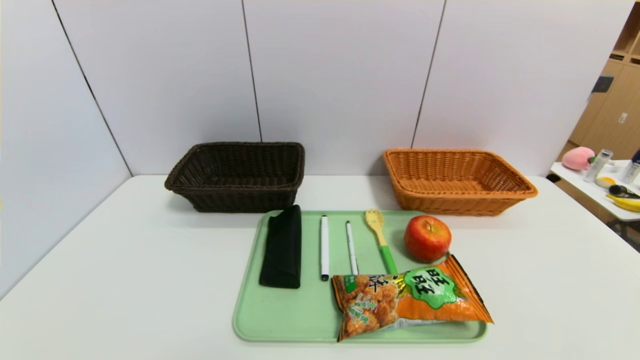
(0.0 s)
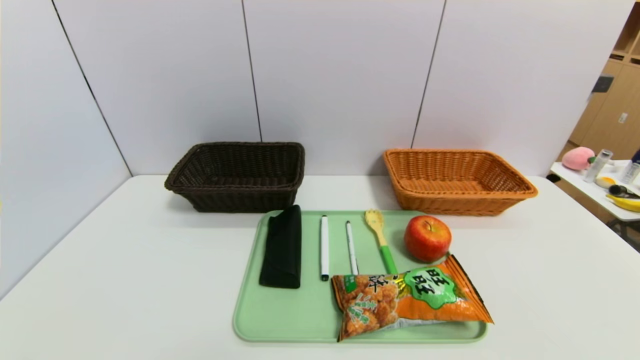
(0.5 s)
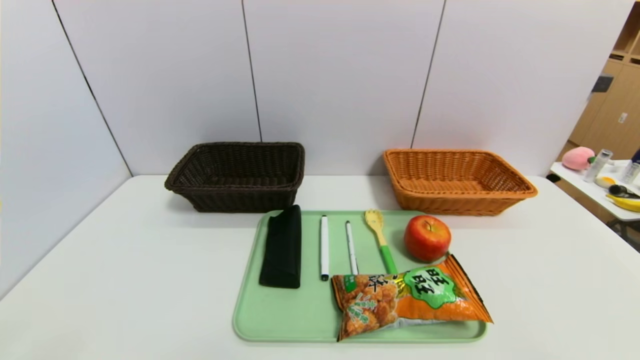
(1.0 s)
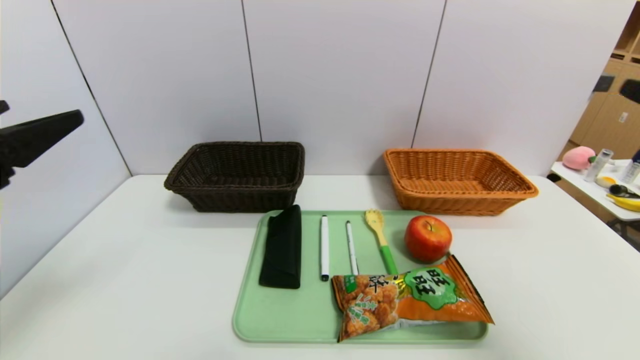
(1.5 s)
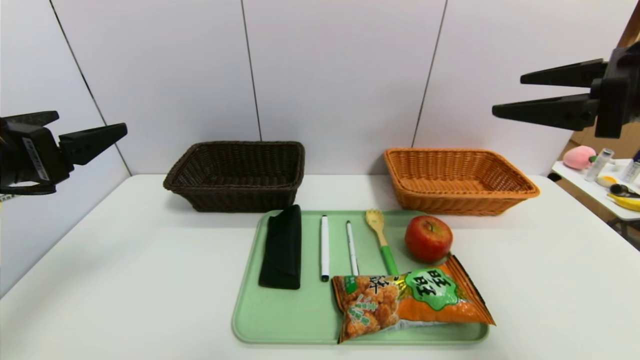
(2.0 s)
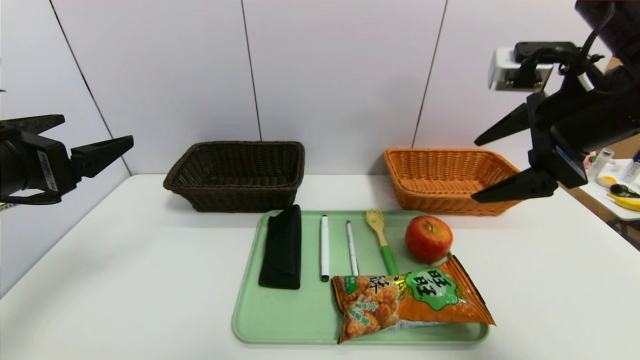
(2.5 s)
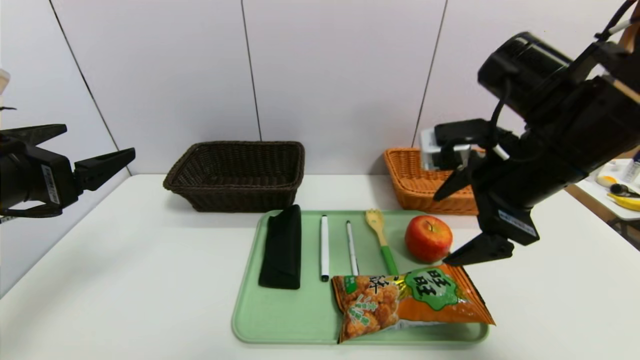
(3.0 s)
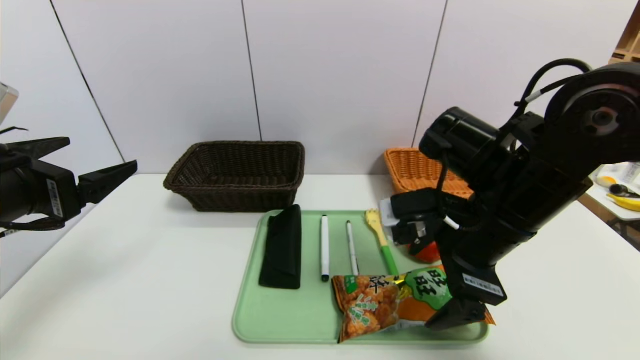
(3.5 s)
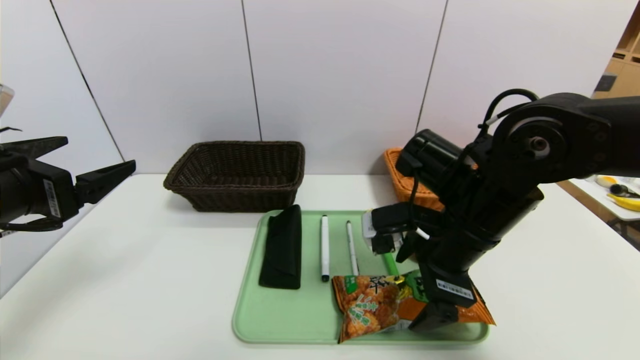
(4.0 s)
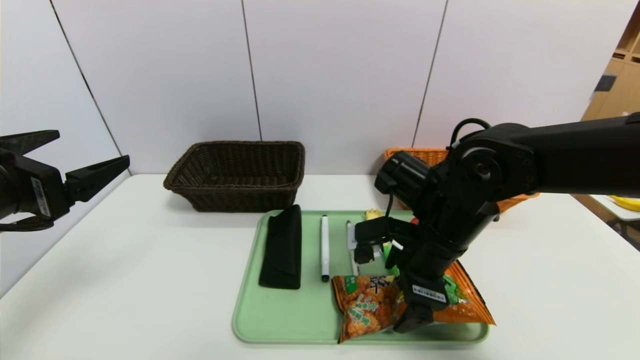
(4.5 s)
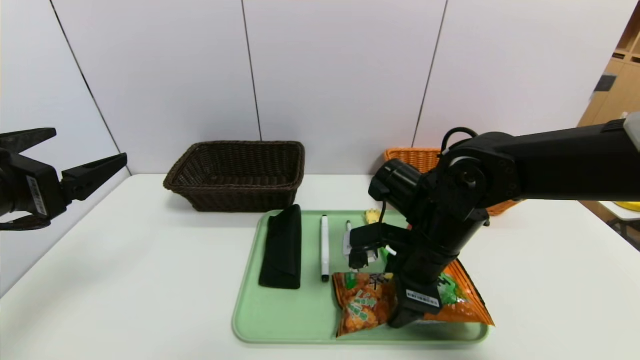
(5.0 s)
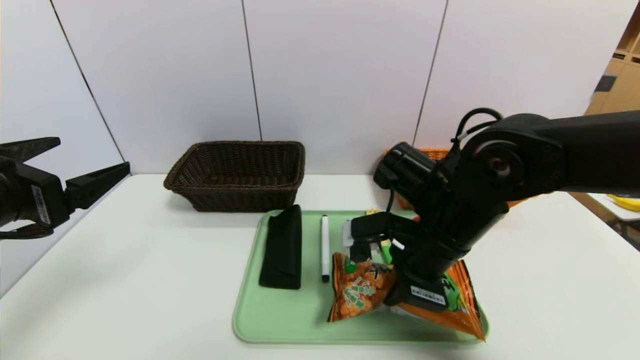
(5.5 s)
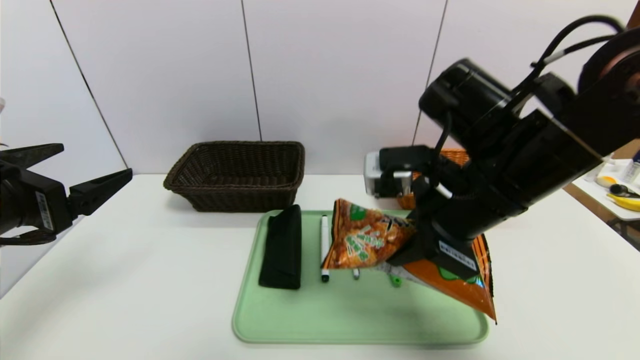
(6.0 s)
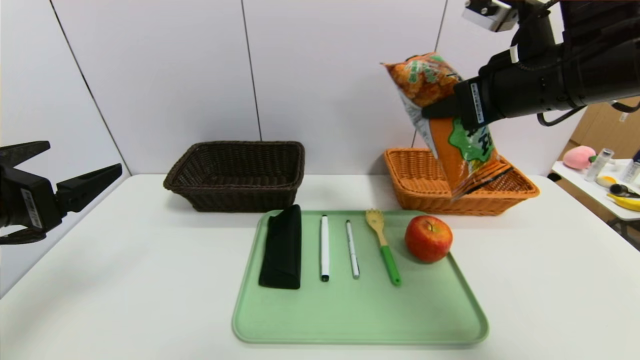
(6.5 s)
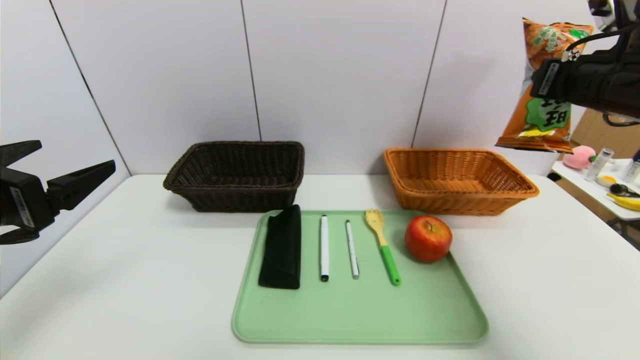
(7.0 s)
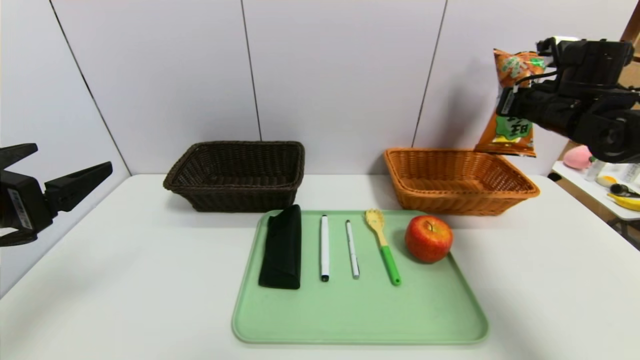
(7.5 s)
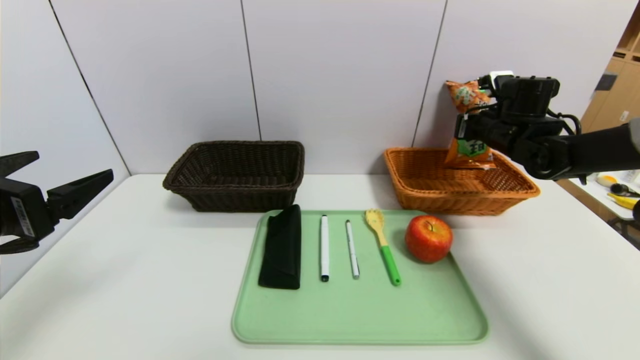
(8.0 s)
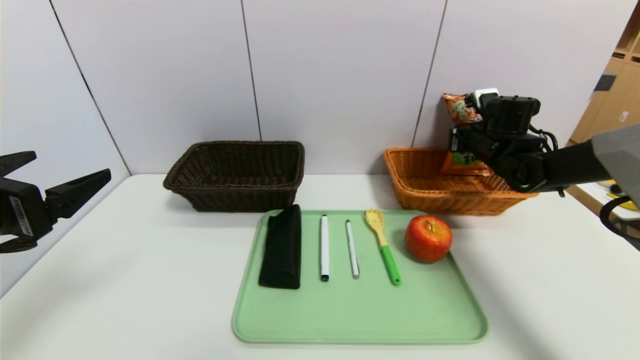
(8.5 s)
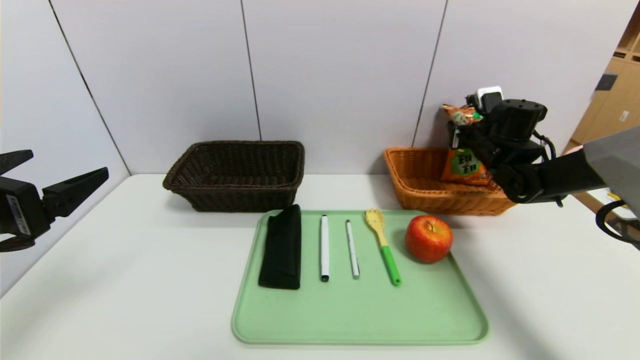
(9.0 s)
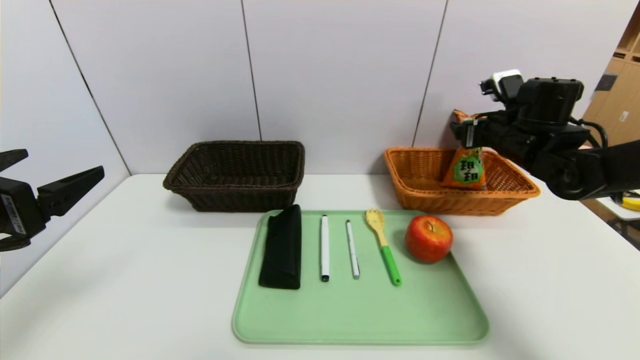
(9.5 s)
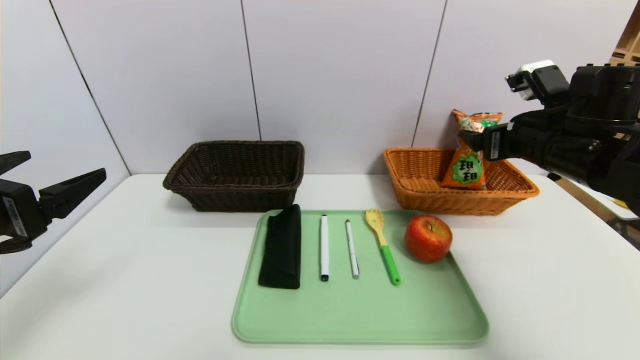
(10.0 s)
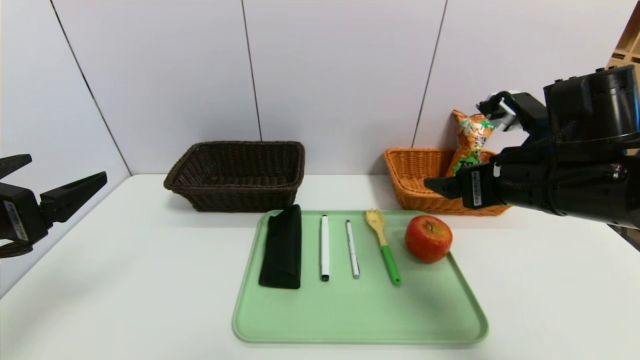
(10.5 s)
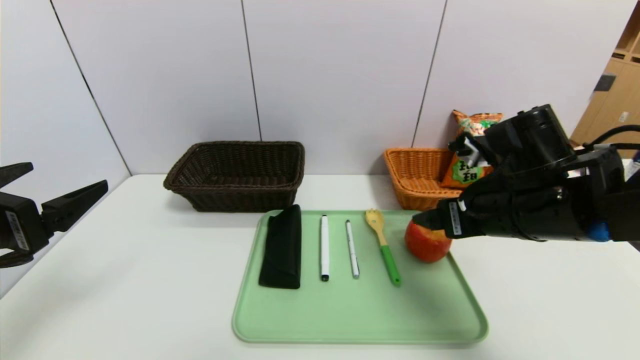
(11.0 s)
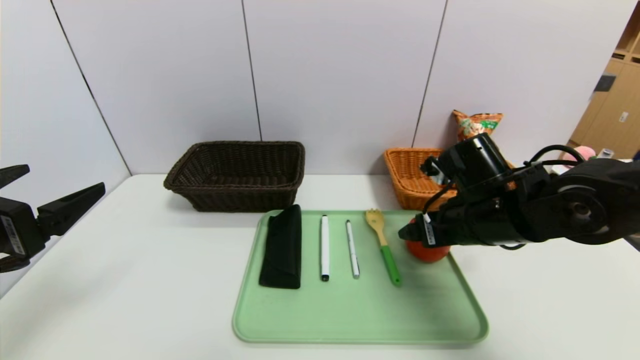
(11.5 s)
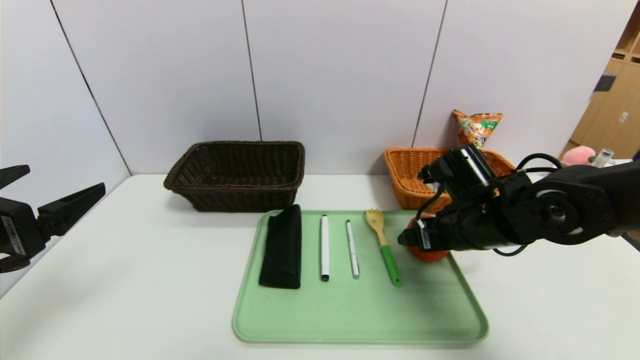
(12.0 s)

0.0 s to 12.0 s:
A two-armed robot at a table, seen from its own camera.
Task of the whole recording: place the food in the right basket with the right gripper, and place the non food items in the left basket with the left gripper.
Step, 0.0 to 8.5 s: Grasp the potato chips and put it in the right basket.
0.0 to 2.0 s: The grippers both shift upward and forward by about 30 cm.
2.0 to 4.0 s: The right gripper moves to the left and downward, approximately 20 cm.
4.0 to 6.0 s: The right gripper travels upward by some 5 cm, and closes its fingers.
6.0 to 8.0 s: The right gripper is displaced forward and to the right by roughly 25 cm.
8.0 to 10.0 s: The right gripper is displaced backward by about 15 cm, and opens.
10.0 to 12.0 s: The right gripper moves downward and to the left, approximately 15 cm.

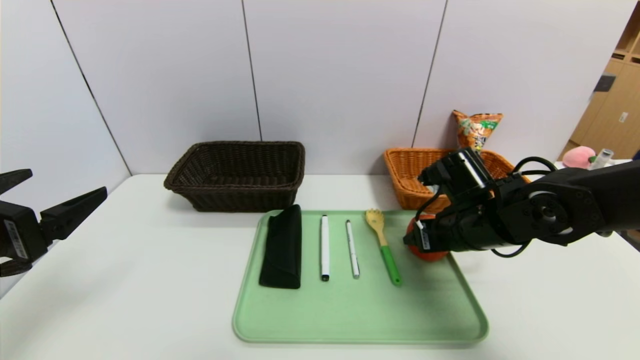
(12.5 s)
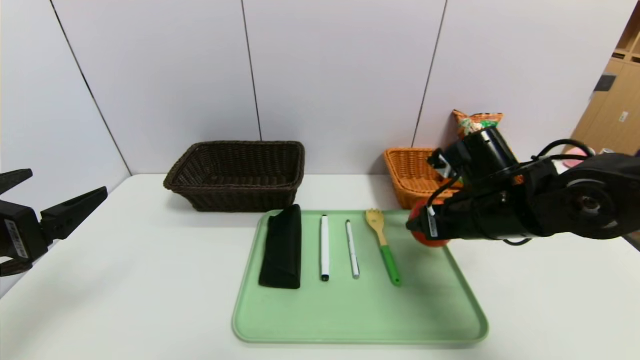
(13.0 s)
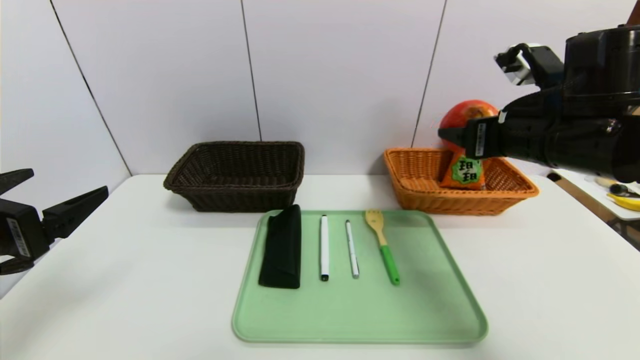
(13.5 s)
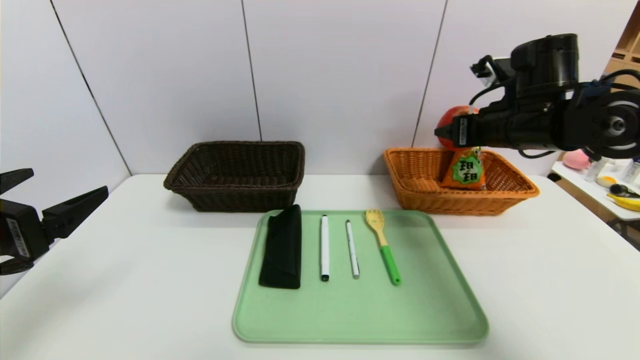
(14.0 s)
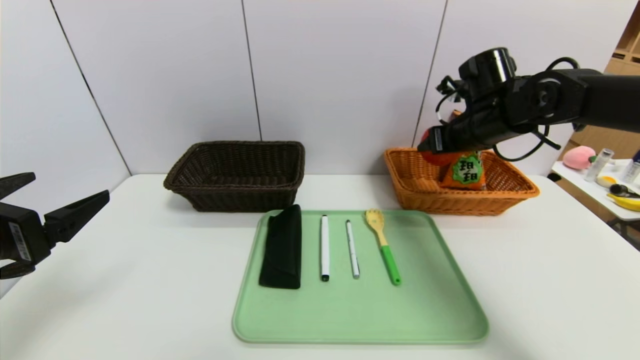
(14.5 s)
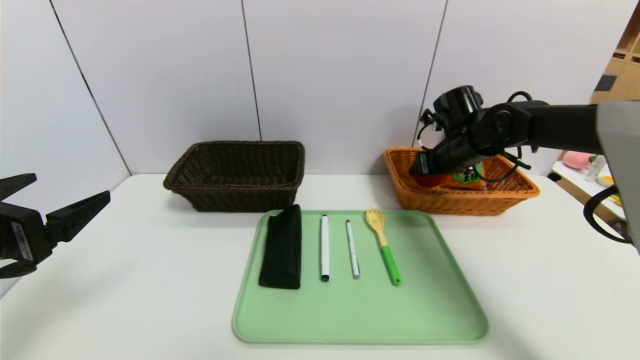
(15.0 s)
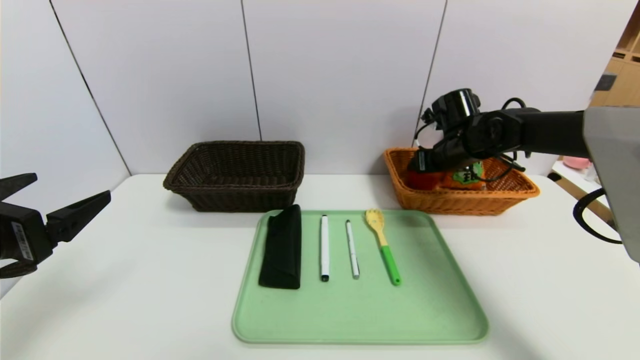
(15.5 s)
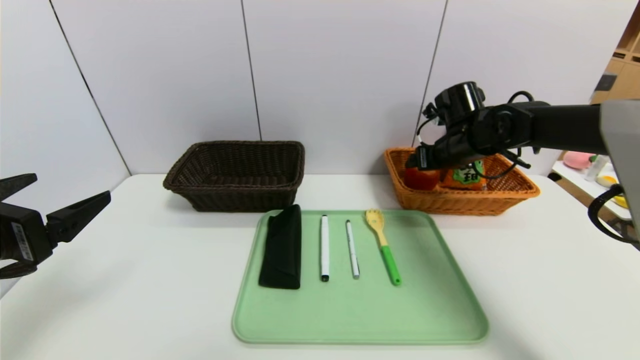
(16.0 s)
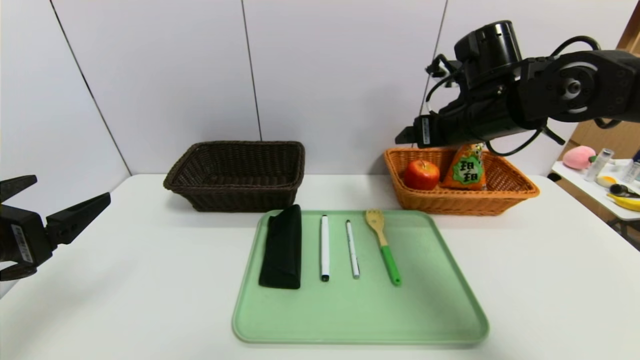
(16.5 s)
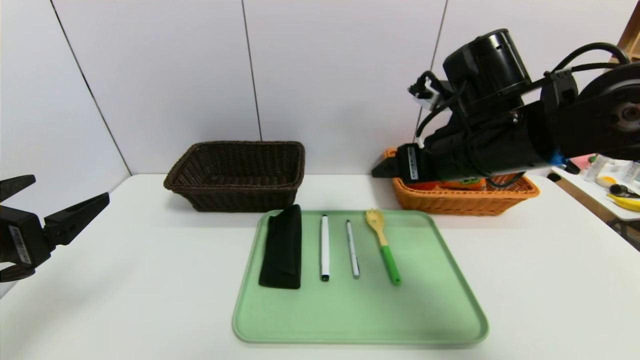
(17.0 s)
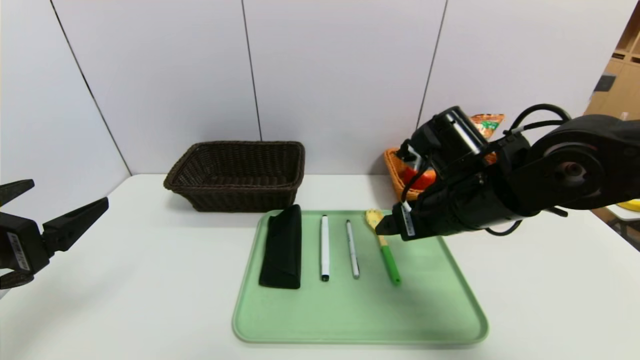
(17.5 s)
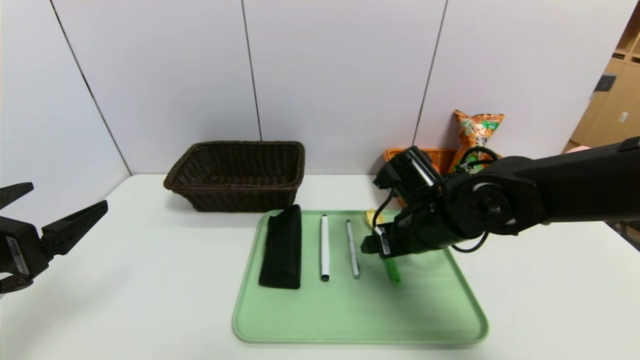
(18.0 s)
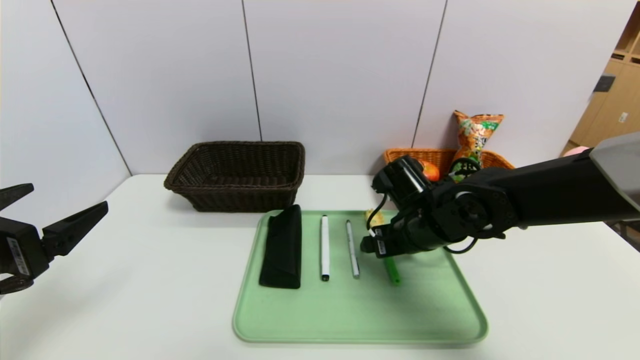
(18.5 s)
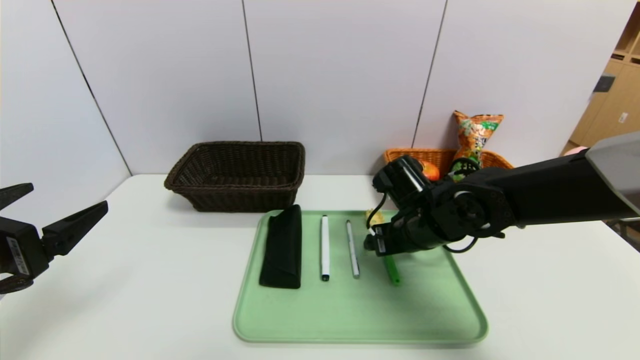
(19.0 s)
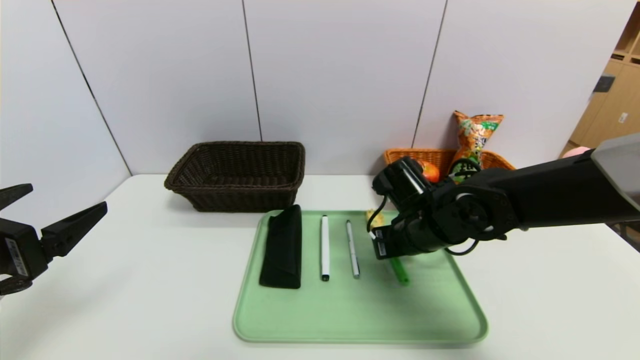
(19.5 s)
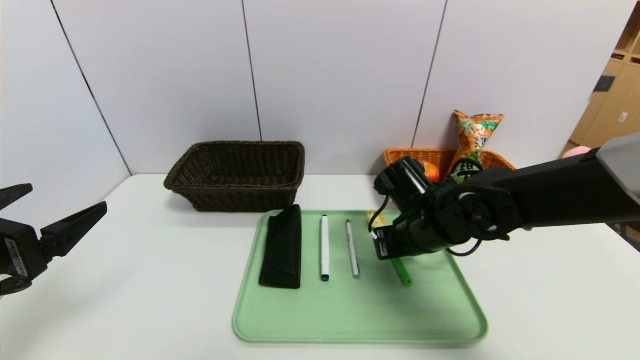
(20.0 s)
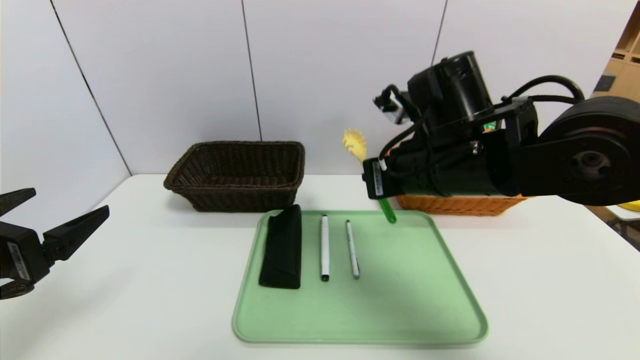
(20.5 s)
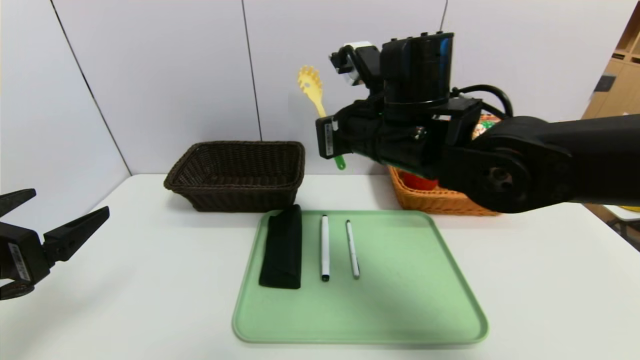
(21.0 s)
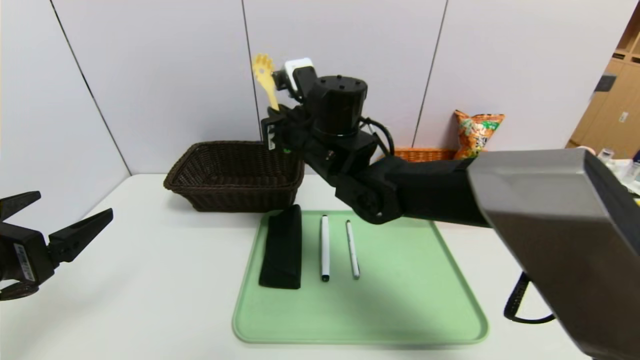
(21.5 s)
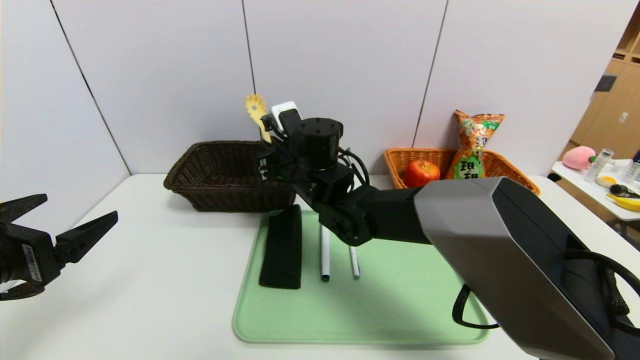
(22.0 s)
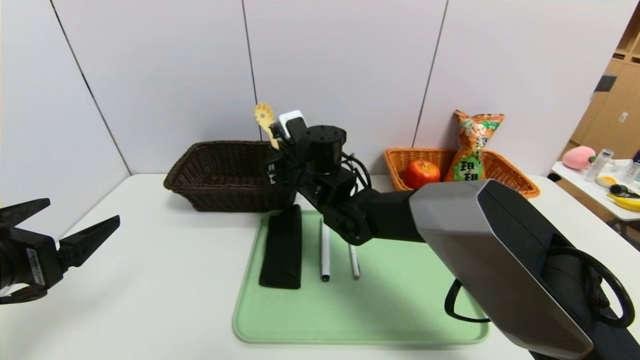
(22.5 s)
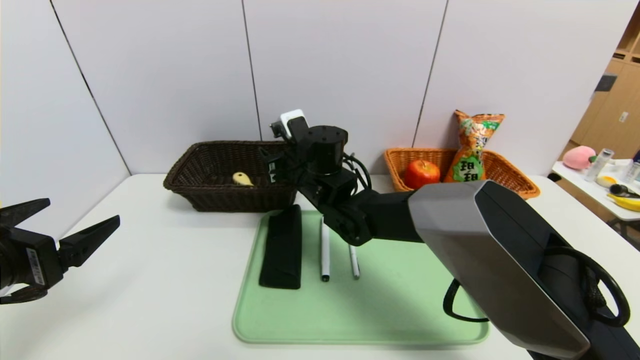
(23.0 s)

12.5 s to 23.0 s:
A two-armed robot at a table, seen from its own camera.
Task of the whole recording: place the food in the right basket with the right gripper, and place the non food items in the left basket with the left gripper.
Step, 12.5 to 15.5 s: Grasp the apple and put it in the right basket.
12.5 to 14.5 s: The right gripper is displaced forward and upward by some 15 cm.
14.5 to 16.5 s: The right gripper is displaced backward by roughly 5 cm.
16.5 to 19.0 s: The right gripper moves downward and to the left, some 15 cm.
19.0 to 21.0 s: The right gripper goes approximately 15 cm upward and to the left, and closes its fingers.
21.0 to 23.0 s: The right gripper is displaced downward, forward and to the left by roughly 15 cm, and opens its fingers.
